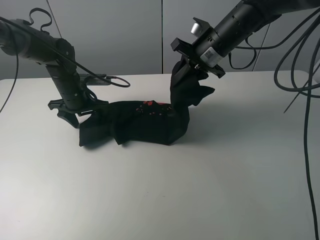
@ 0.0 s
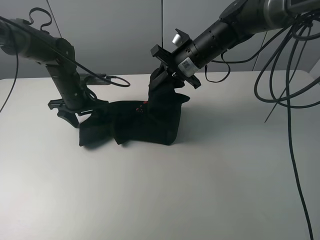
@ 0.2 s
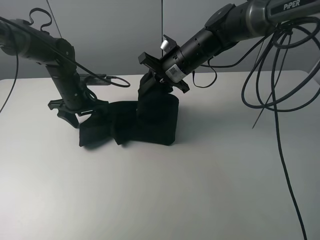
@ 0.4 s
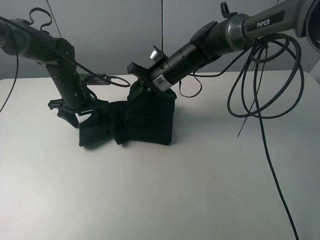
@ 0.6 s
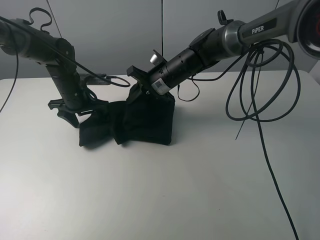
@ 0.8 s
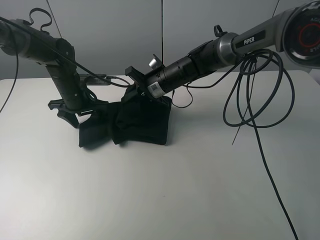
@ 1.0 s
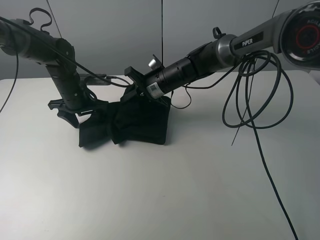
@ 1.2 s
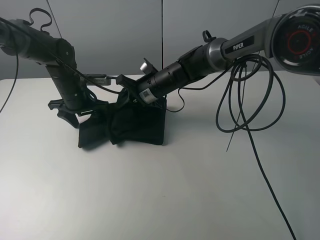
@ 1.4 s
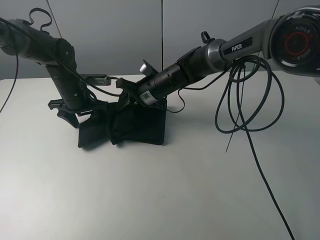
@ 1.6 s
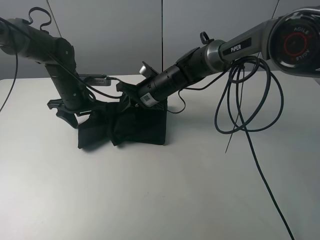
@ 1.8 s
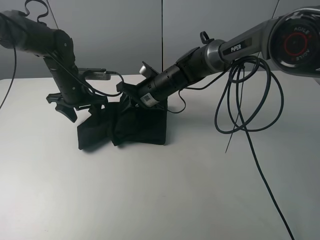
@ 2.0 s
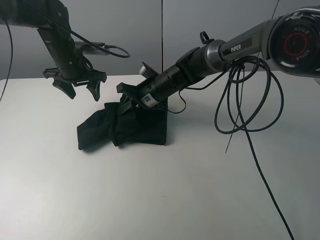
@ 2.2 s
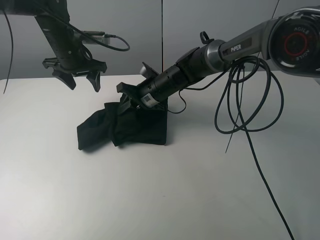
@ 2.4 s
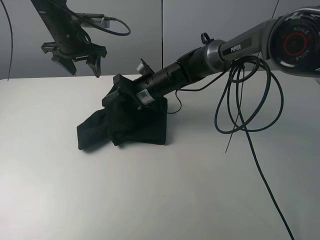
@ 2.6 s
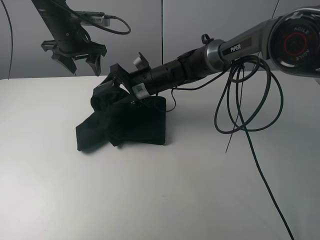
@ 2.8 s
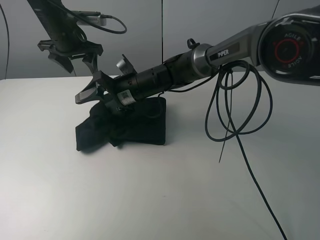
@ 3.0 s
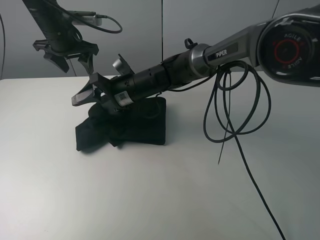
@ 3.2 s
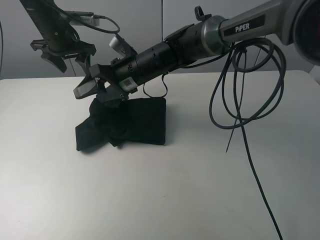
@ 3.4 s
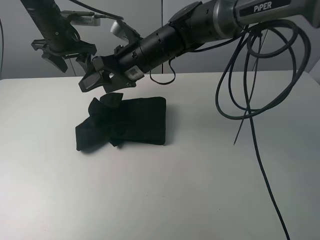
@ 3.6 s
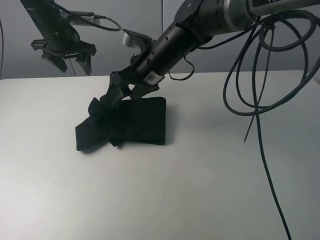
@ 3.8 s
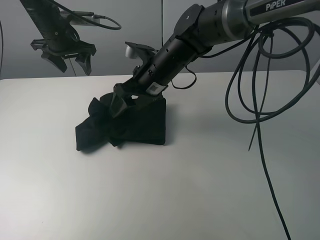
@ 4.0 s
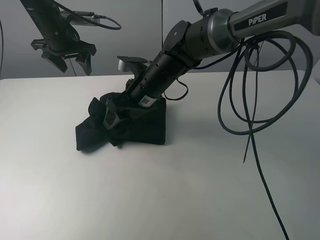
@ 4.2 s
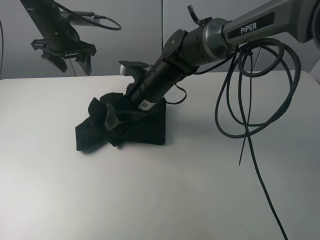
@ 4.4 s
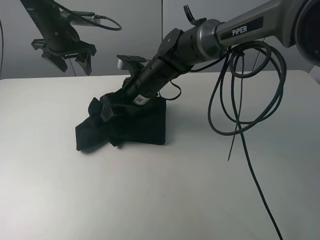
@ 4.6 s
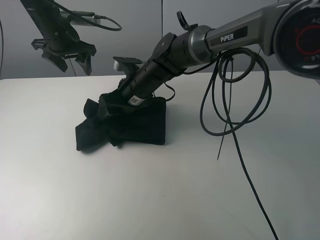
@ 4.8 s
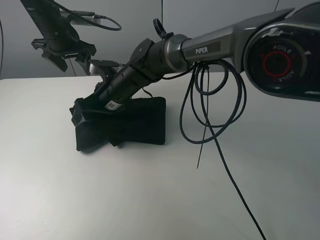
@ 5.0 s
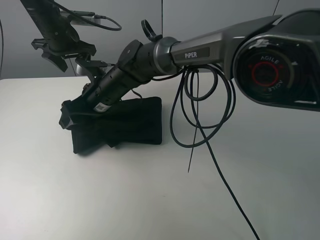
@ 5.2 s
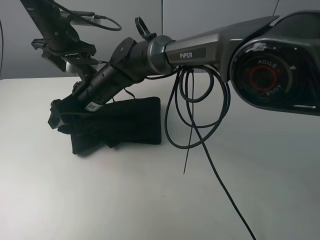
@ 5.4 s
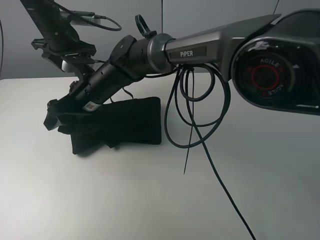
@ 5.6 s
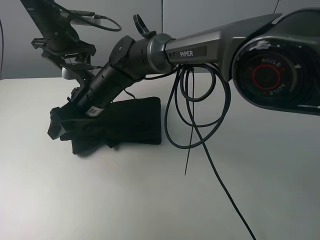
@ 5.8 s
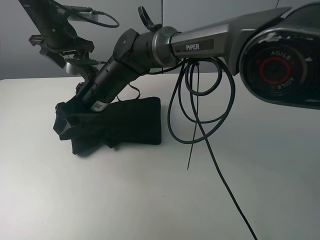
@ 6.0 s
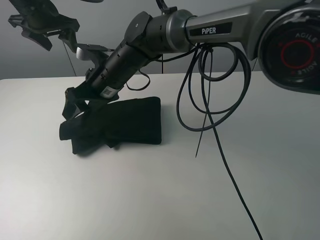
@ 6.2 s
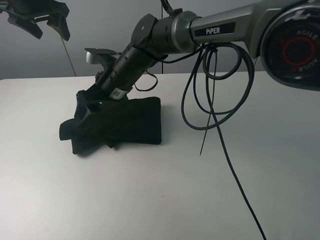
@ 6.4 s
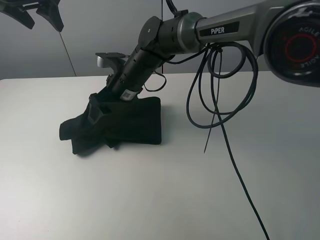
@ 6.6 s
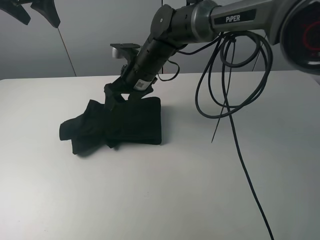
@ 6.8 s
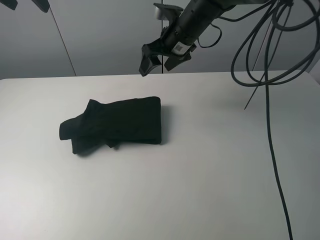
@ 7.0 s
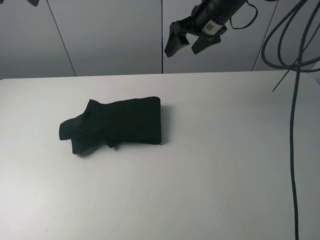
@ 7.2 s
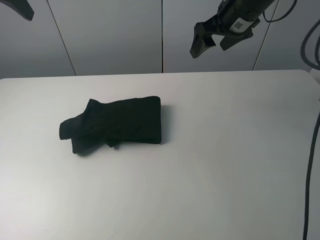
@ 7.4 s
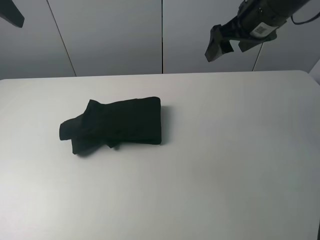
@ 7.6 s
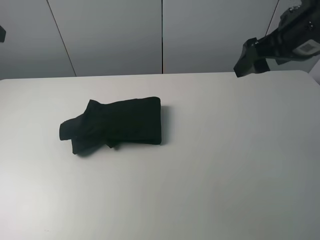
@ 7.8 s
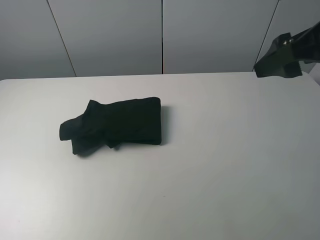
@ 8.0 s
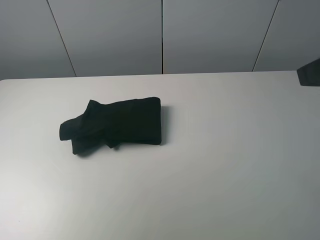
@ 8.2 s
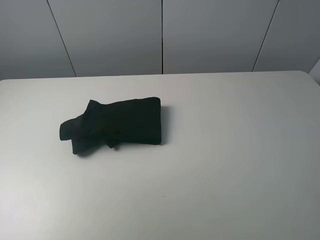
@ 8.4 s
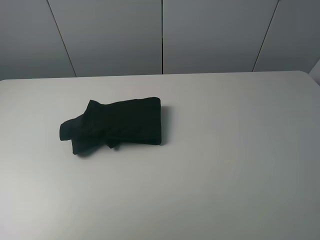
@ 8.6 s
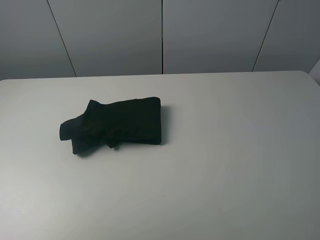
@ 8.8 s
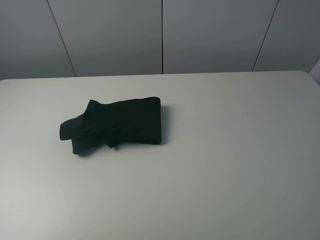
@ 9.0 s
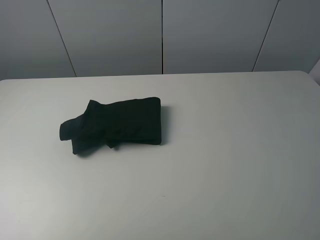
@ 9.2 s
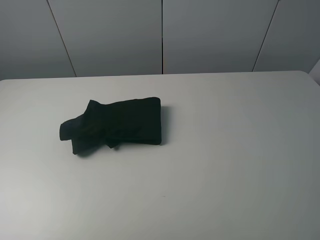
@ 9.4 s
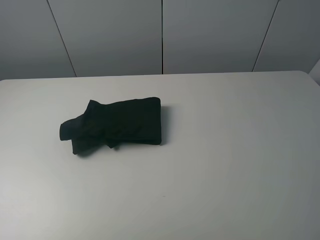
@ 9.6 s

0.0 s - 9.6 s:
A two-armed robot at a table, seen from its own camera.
Task of the whole recording: fold the clothes on the table.
Step, 0.0 s - 6.2 s: Fold the black T-shirt from right to left with right gripper.
0.0 s - 1.6 s: The right gripper shifts about 15 cm downward and to the left.
1.6 s - 3.2 s: The right gripper ends up approximately 5 cm from where it was, and opens its fingers, while the left gripper goes roughly 15 cm upward and forward.
3.2 s - 4.8 s: The right gripper travels upward and back again, roughly 10 cm each way.
4.8 s - 6.4 s: The left gripper heads upward, covering roughly 10 cm.
6.4 s - 8.0 s: The right gripper is displaced to the right, upward and backward by about 40 cm. The left gripper shifts approximately 25 cm backward.
8.0 s - 9.6 s: The left gripper goes some 20 cm backward and downward, while the right gripper moves backward, about 20 cm.

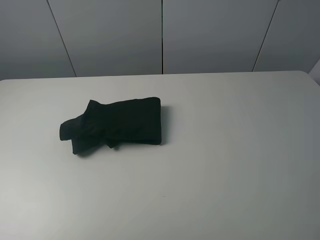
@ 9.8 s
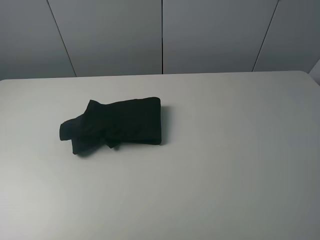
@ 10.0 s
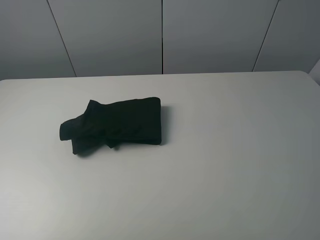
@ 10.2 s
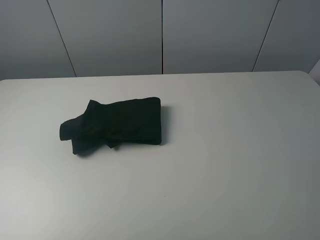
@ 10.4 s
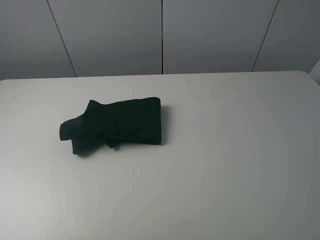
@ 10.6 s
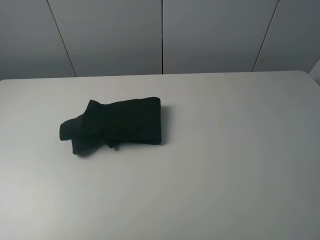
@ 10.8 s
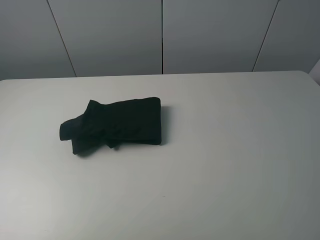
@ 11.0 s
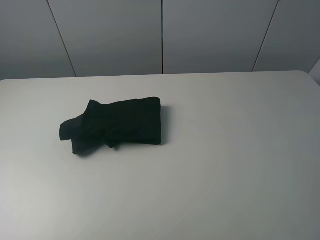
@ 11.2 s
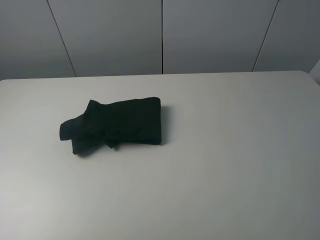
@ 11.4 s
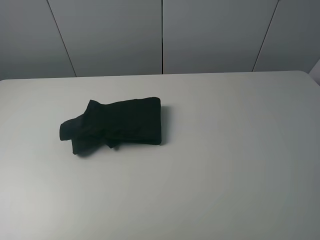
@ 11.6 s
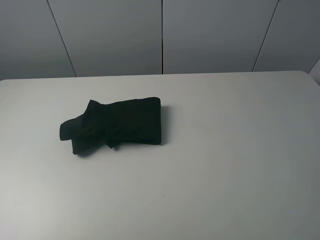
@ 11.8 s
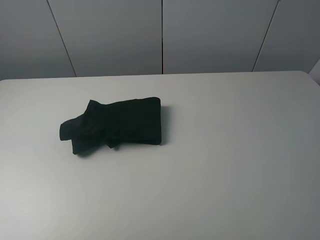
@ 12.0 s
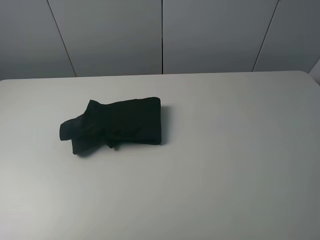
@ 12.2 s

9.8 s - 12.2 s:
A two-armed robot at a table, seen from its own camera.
Task of the whole recording: fold the clothes on the table.
11.0 s - 12.2 s: Both grippers stay about where they are.
